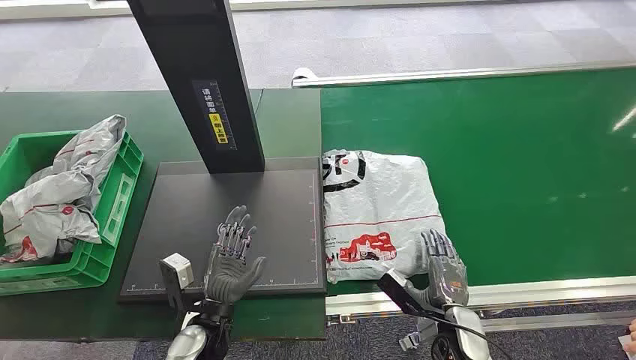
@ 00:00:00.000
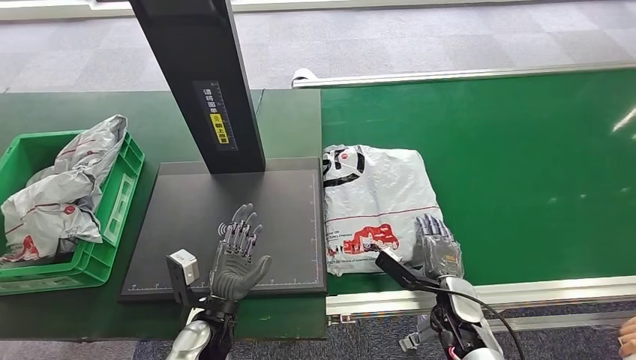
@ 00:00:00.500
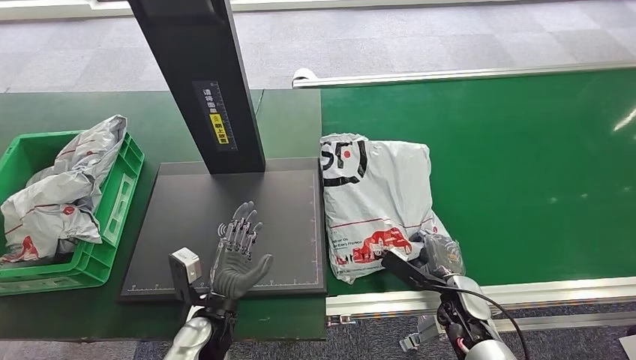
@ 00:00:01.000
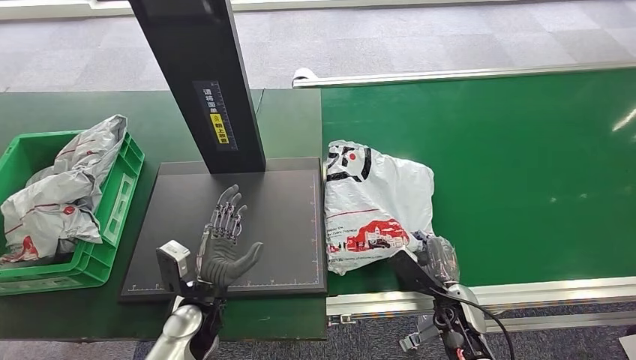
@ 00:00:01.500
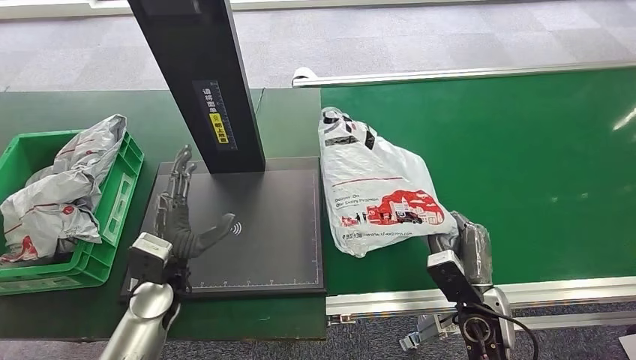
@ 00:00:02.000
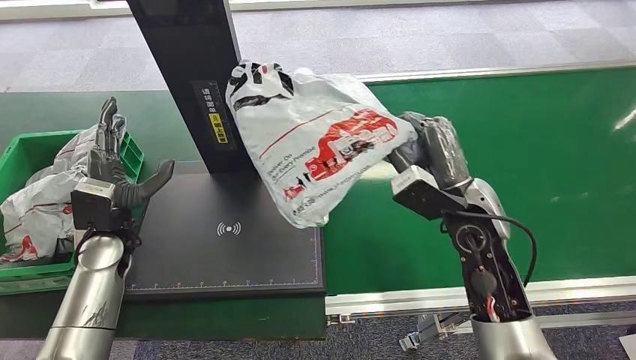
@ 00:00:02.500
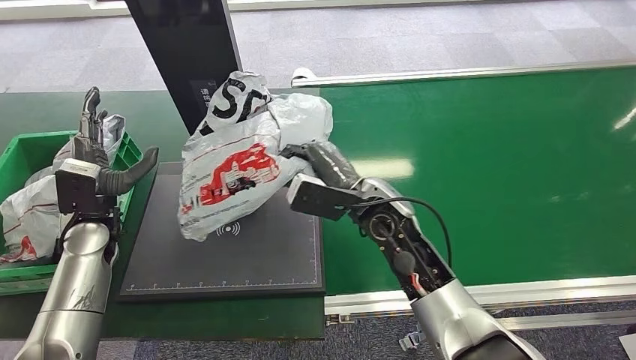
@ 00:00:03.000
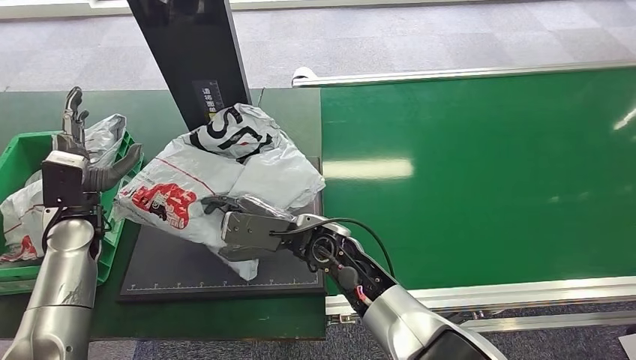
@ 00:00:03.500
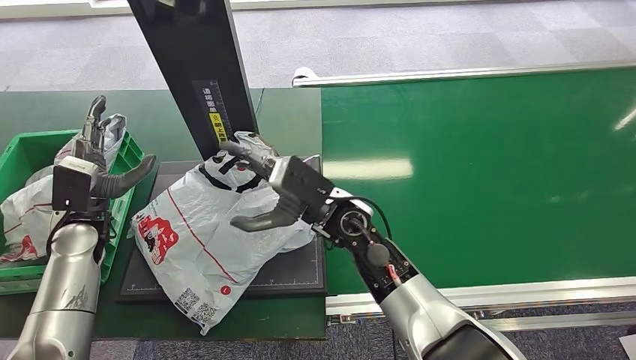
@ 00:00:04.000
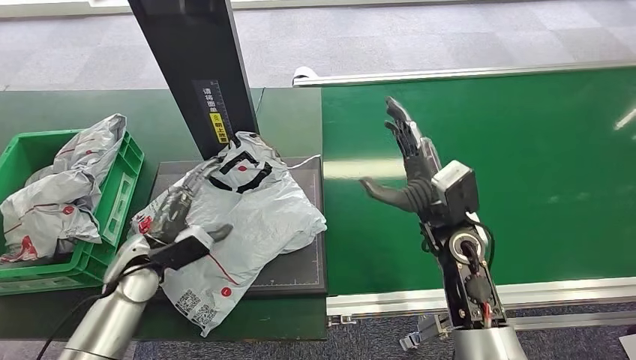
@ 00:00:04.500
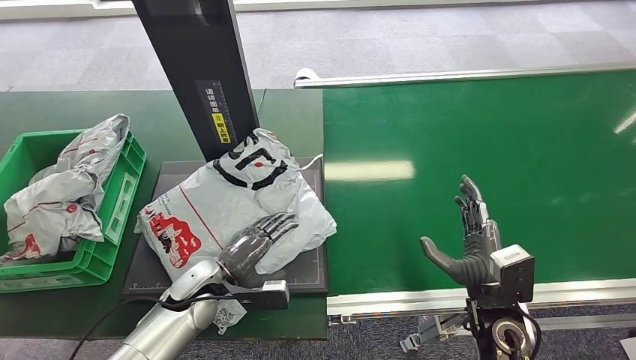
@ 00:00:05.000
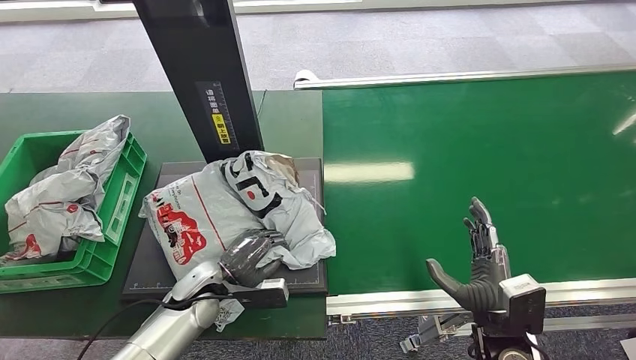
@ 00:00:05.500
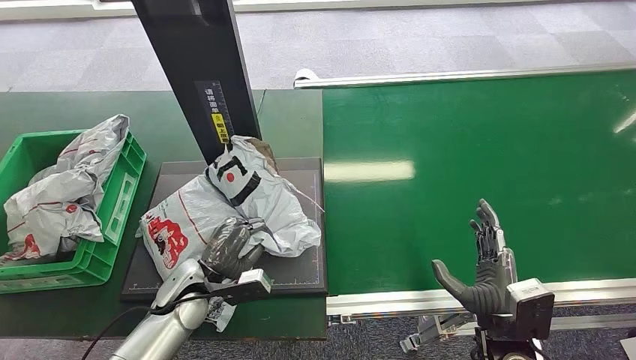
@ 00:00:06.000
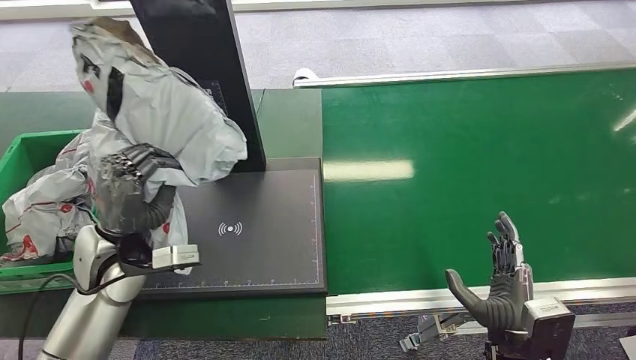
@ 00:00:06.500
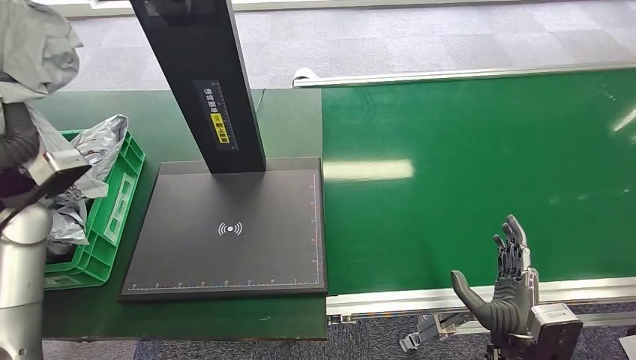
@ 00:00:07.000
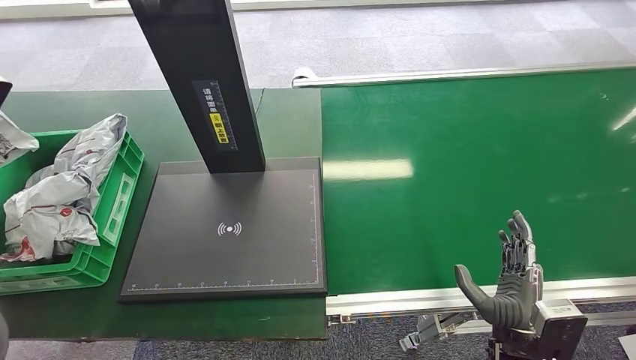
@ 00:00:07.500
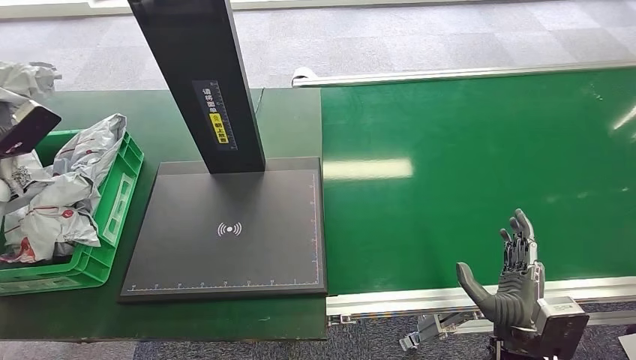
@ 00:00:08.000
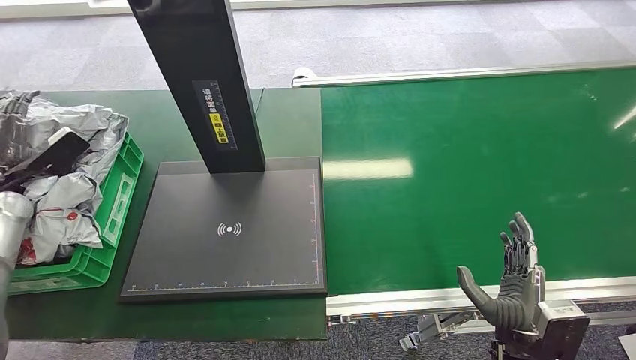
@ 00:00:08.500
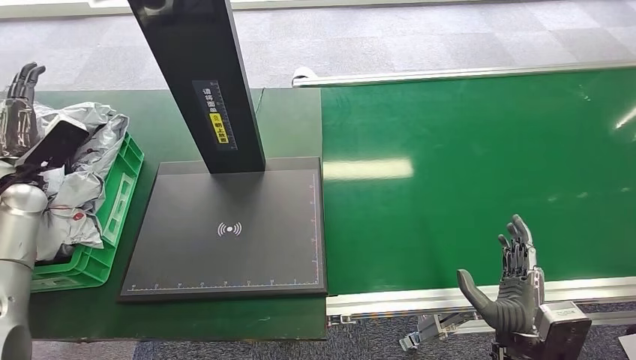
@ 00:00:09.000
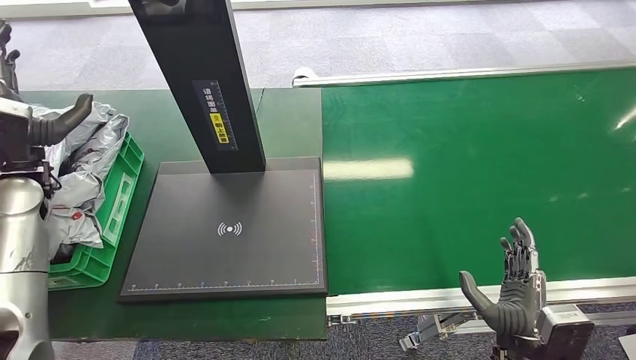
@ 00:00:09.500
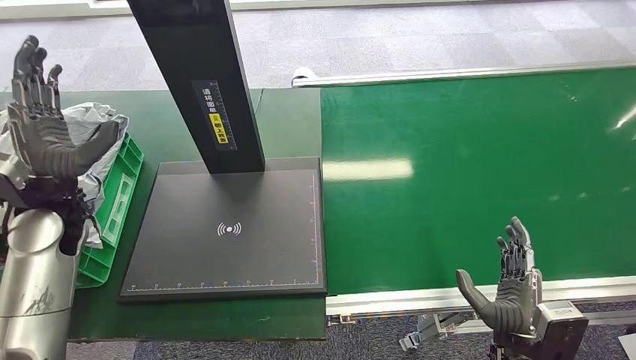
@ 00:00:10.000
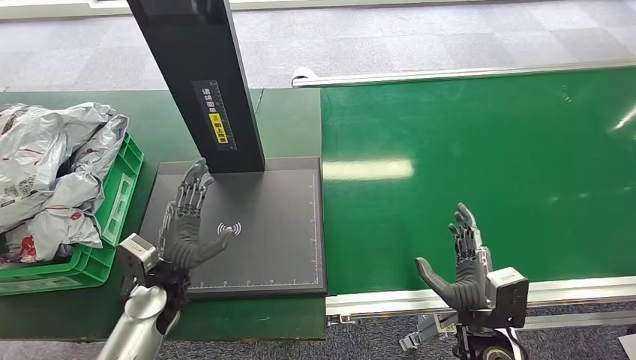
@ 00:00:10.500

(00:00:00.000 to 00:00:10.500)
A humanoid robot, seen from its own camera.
Step, 00:00:00.000 - 00:00:02.500: Pick up the package from the conveyor belt.
Step, 00:00:03.000 - 00:00:04.500: Place the package onto the inbound machine.
Step, 00:00:05.000 - 00:00:07.000: Pick up the package from the inbound machine.
Step, 00:00:07.500 - 00:00:10.500: Place the package into the parcel locker.
00:00:08.500 - 00:00:10.500: The left hand heads to the right, covering about 30 cm.

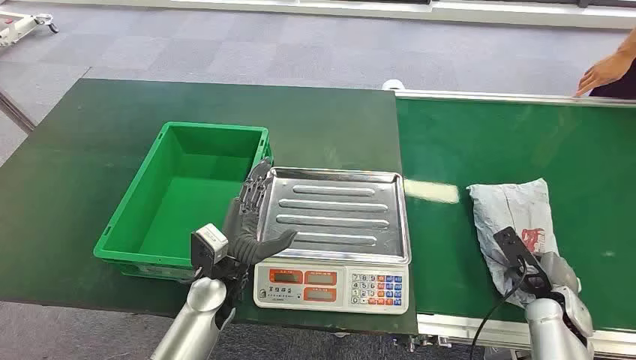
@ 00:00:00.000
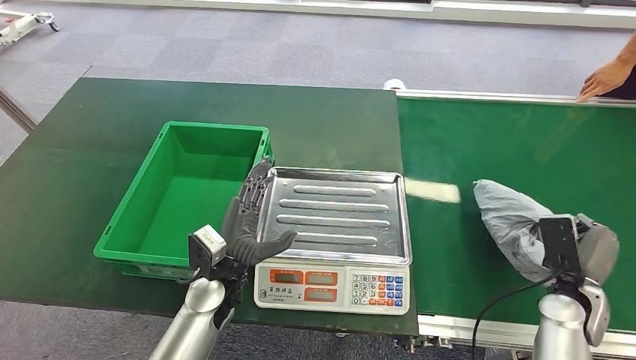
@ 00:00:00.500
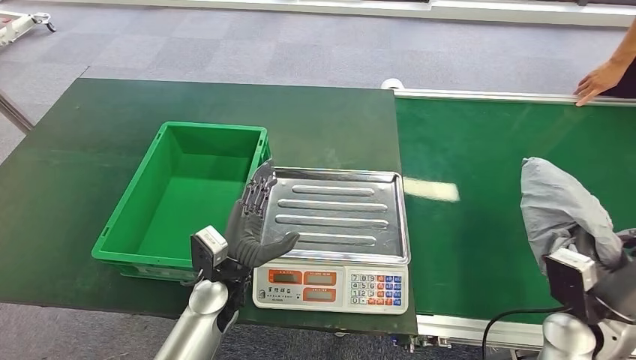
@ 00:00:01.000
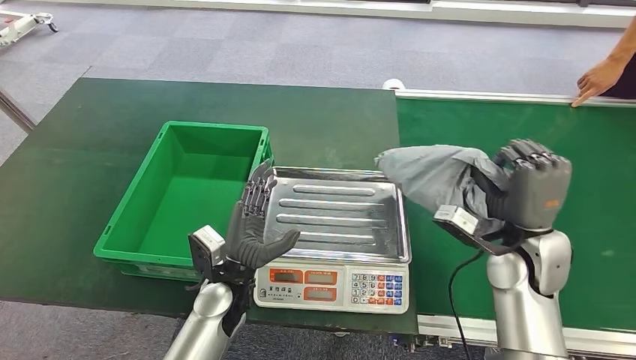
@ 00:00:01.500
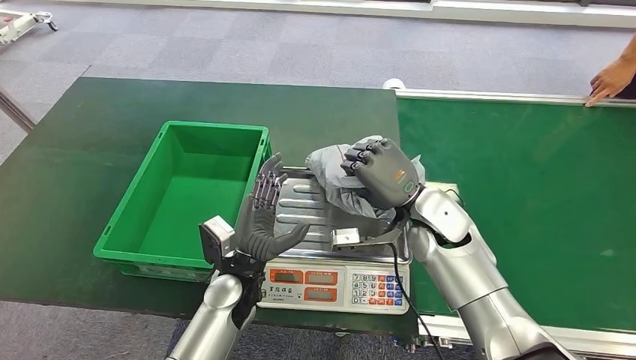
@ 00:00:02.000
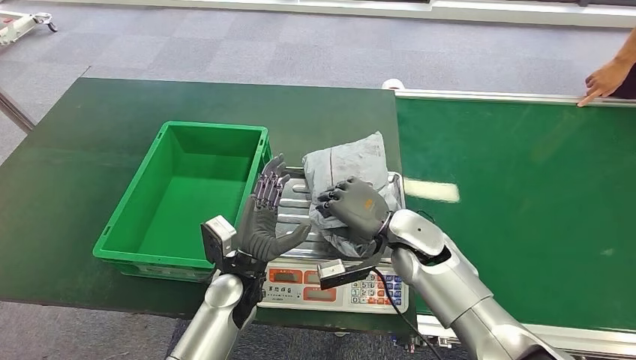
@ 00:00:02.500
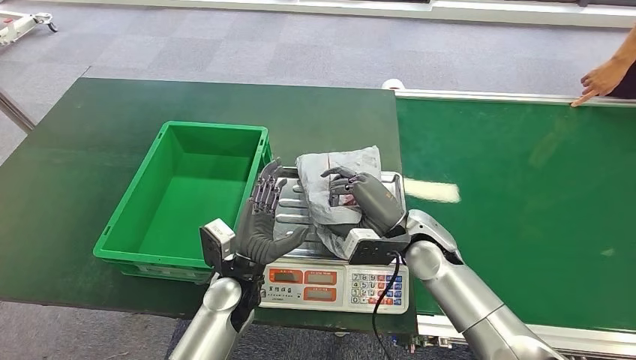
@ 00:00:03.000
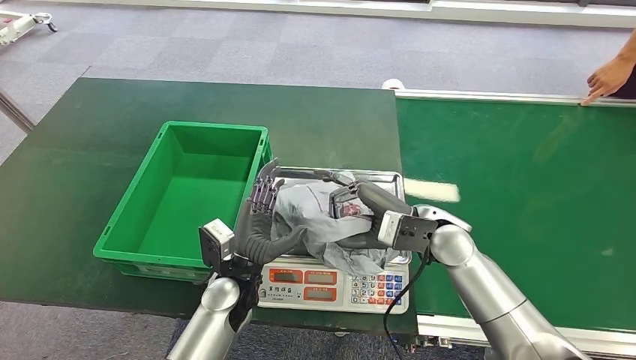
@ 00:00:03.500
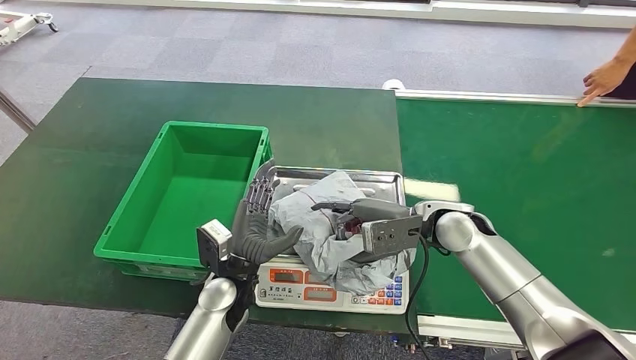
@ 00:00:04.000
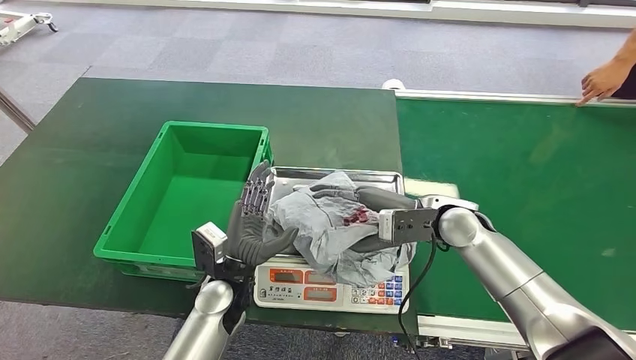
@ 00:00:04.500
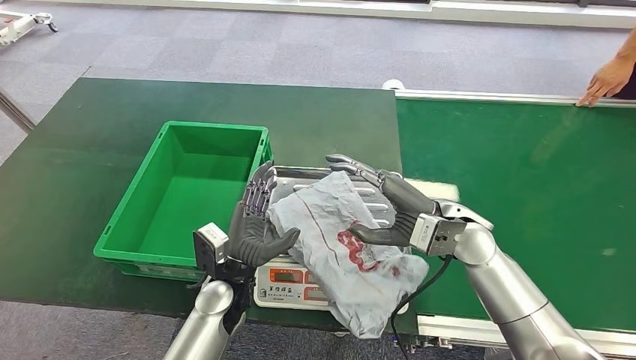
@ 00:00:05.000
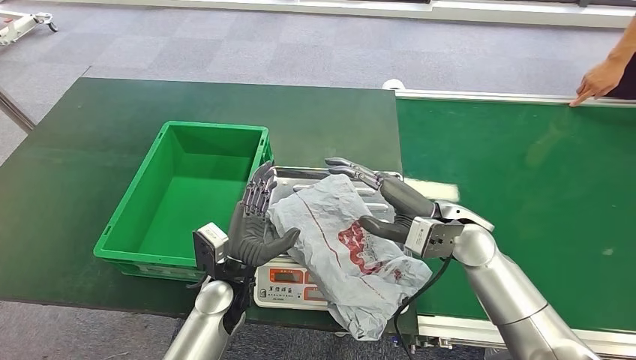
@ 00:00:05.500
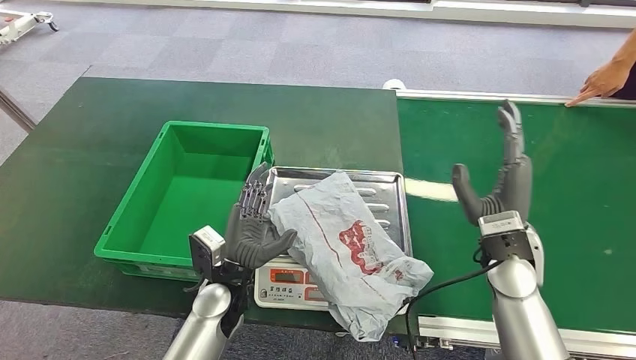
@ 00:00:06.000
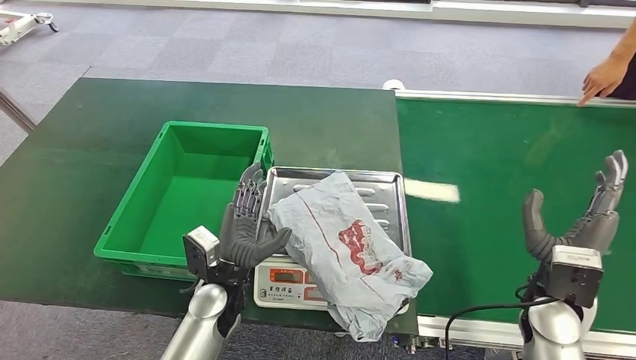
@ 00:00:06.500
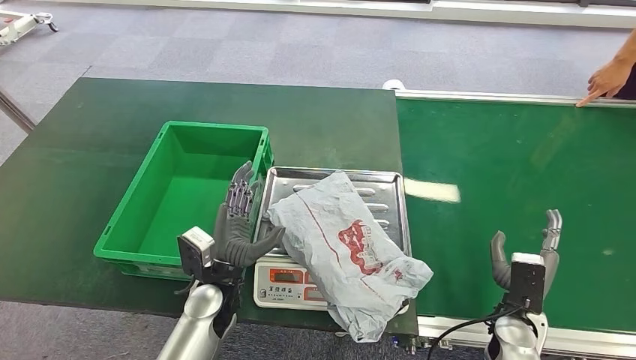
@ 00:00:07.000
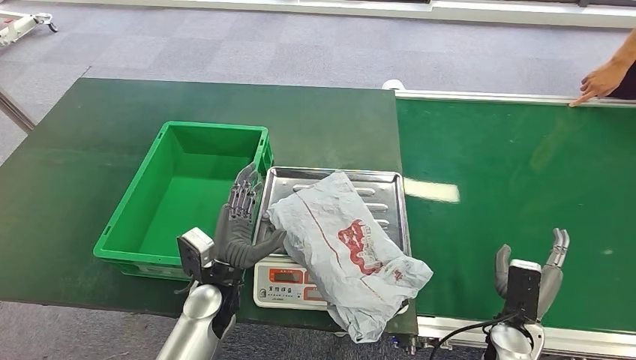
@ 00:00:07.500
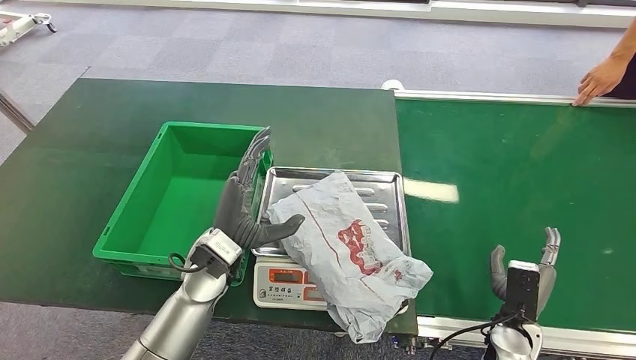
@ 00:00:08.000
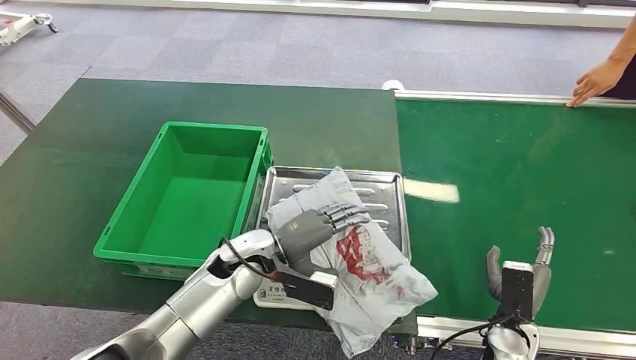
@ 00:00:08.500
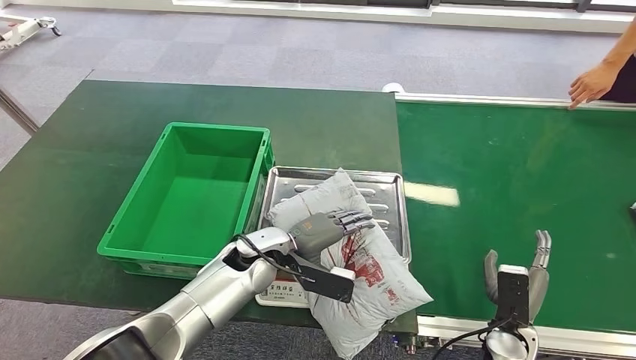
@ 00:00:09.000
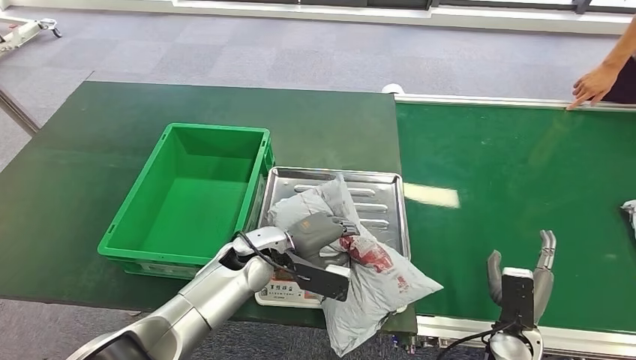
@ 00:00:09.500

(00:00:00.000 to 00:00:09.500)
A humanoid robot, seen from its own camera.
Step, 00:00:00.000 - 00:00:01.000: Pick up the package from the conveyor belt.
Step, 00:00:01.500 - 00:00:05.500: Place the package onto the inbound machine.
00:00:05.500 - 00:00:07.500: The right hand goes approximately 25 cm downward, to the right and backward.
